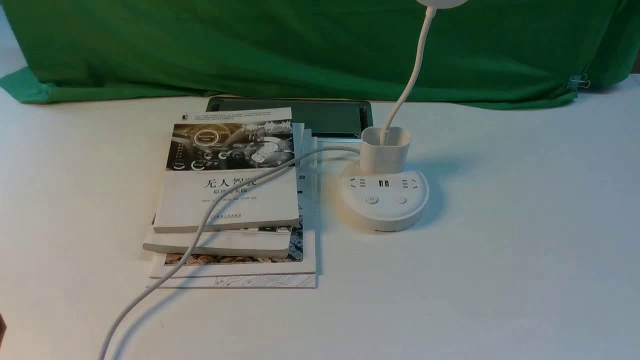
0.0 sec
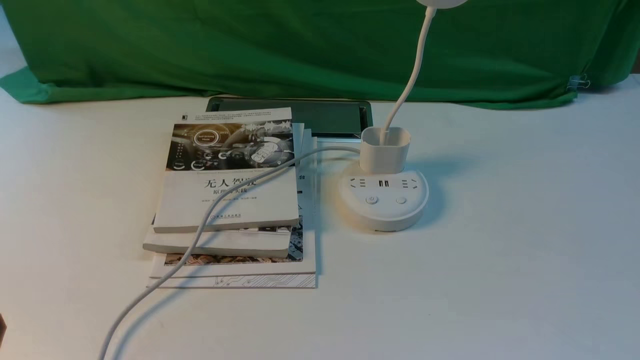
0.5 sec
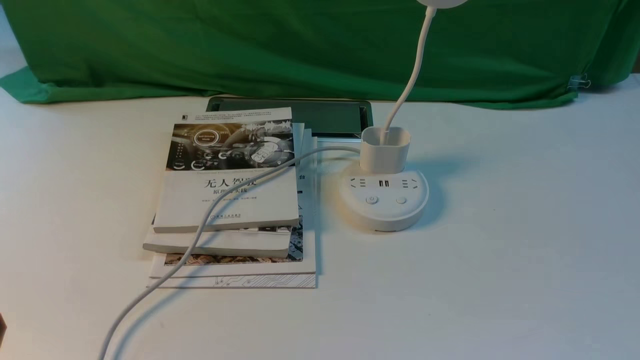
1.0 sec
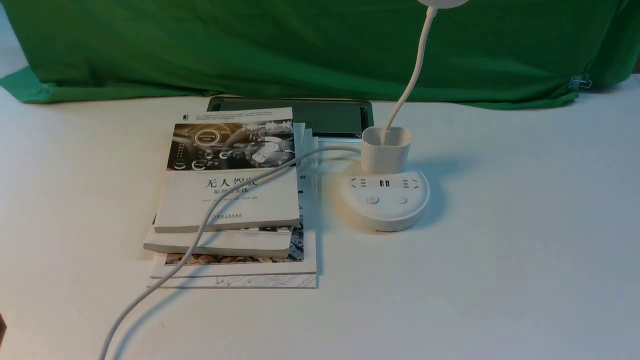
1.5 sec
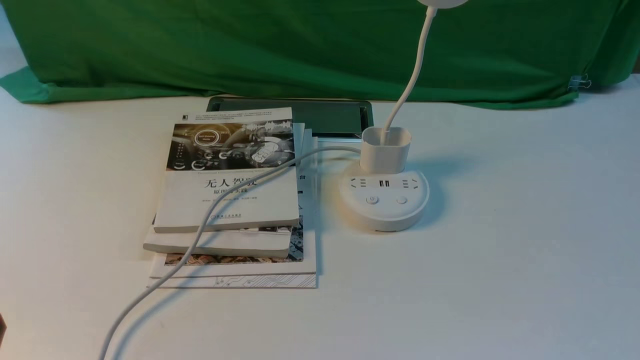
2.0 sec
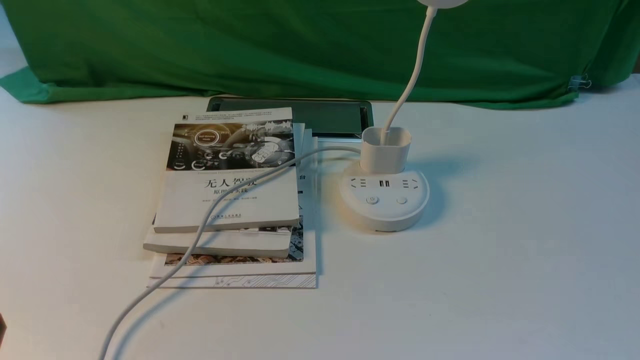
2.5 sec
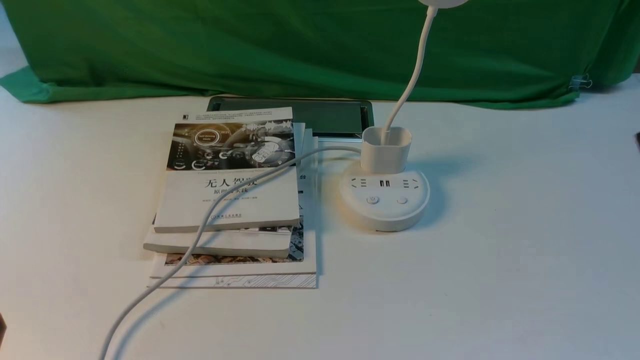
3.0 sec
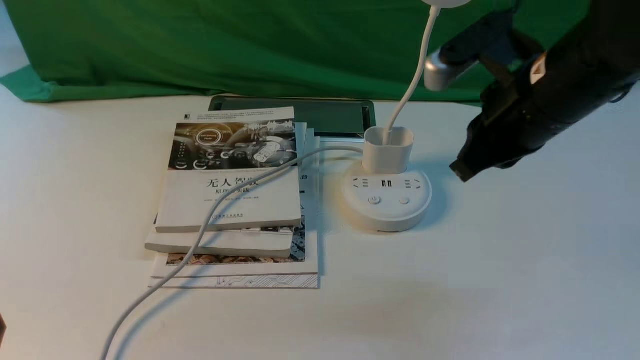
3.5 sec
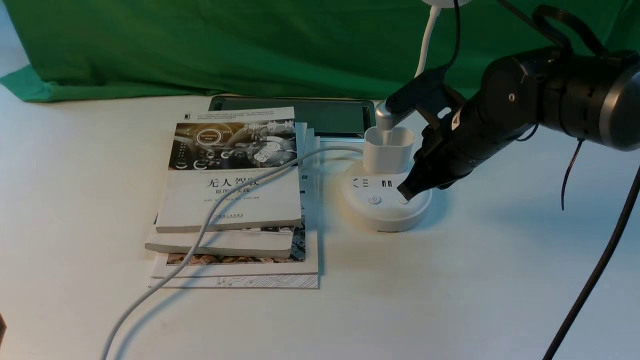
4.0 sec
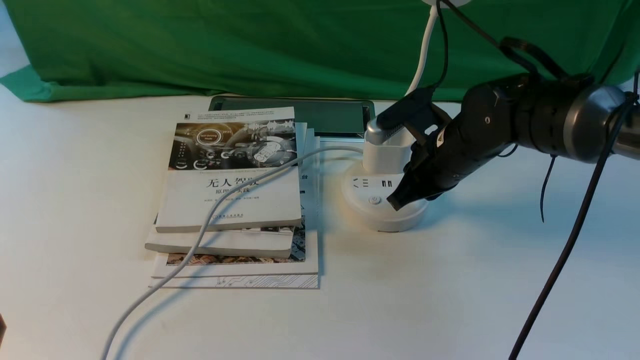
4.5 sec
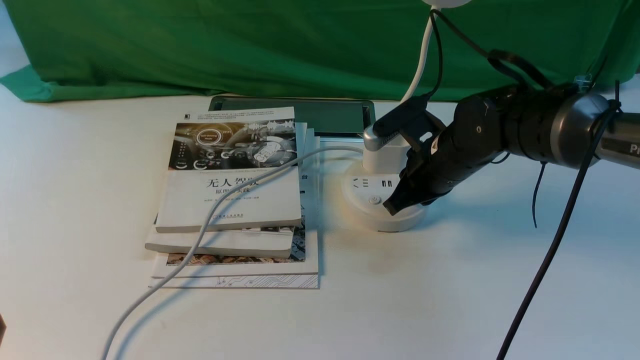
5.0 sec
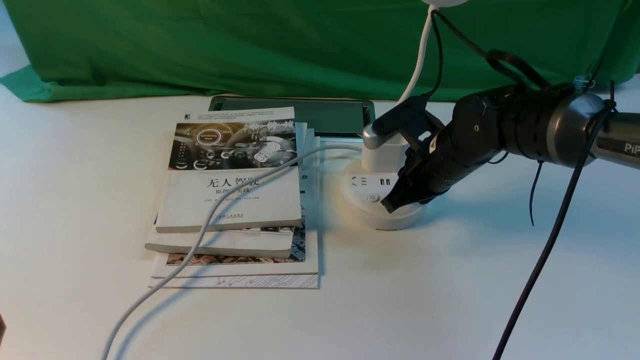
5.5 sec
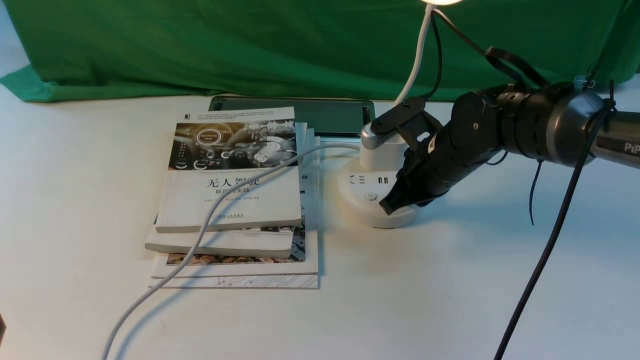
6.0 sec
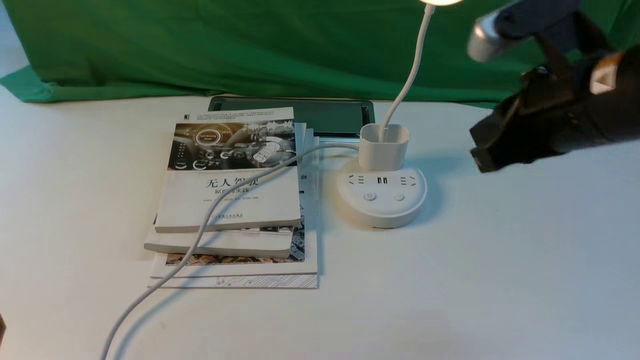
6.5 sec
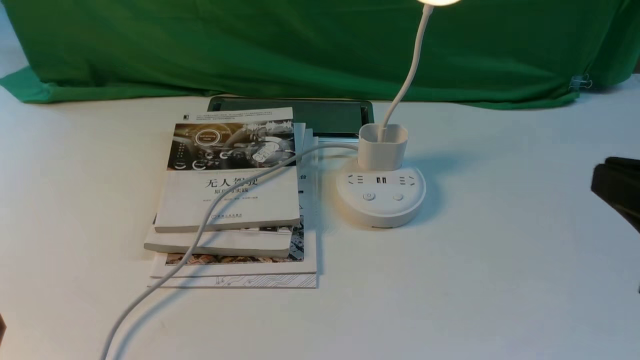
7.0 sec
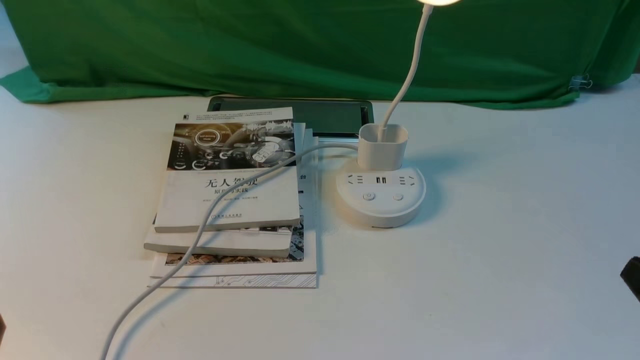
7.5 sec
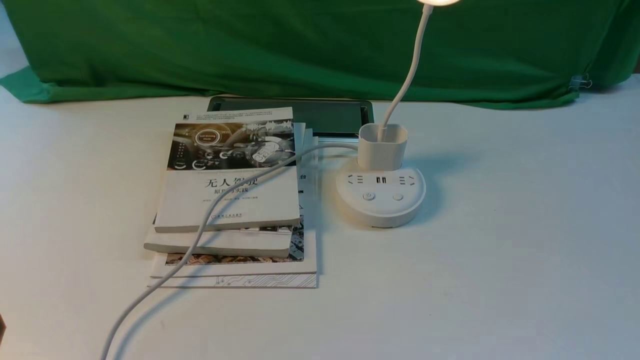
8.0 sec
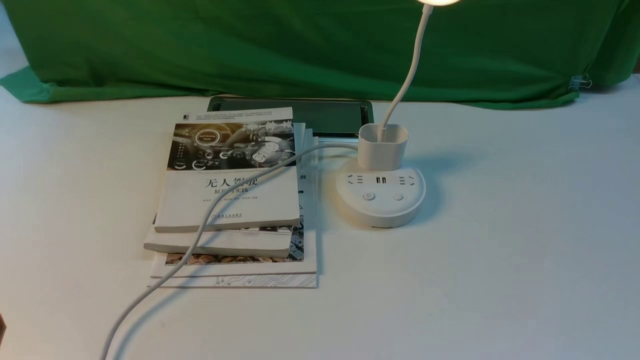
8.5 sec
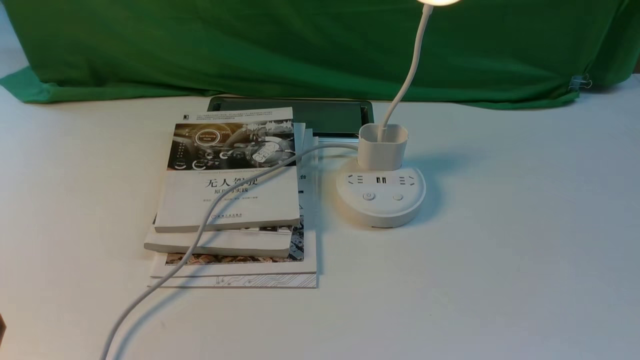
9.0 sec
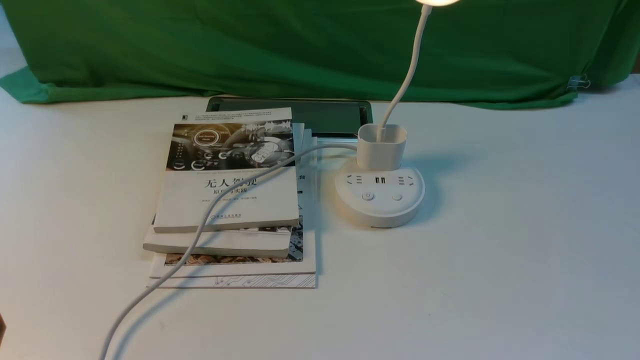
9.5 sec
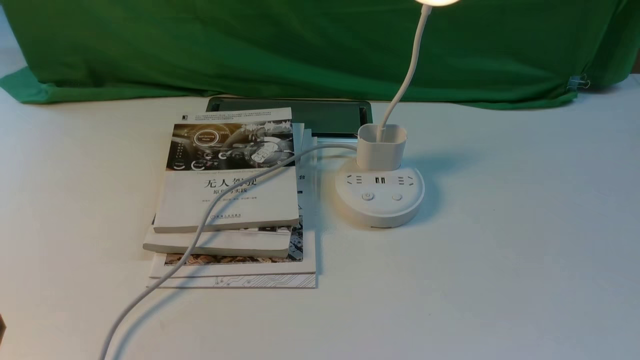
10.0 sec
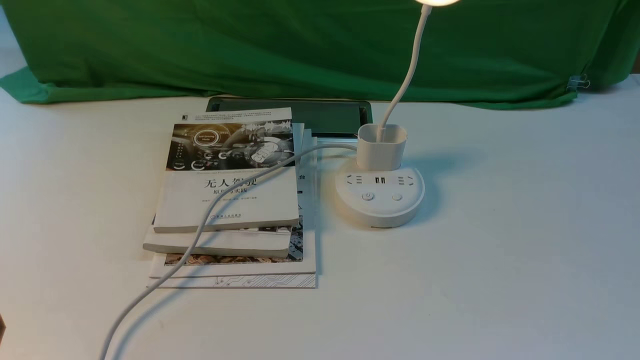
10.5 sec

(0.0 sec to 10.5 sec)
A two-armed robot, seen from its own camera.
Step, 0.0 sec - 6.0 sec: use the right arm to press the button switch on the lamp holder.
2.0 sec - 4.0 sec: The right gripper is displaced forward and to the left by roughly 35 cm, and closes up.
4.0 sec - 6.5 sec: The right gripper heads upward and backward, covering approximately 15 cm.
6.5 sec - 8.5 sec: The right gripper shifts roughly 30 cm backward, downward and to the right, and opens up.
8.5 sec - 10.5 sec: Neither gripper changes place.

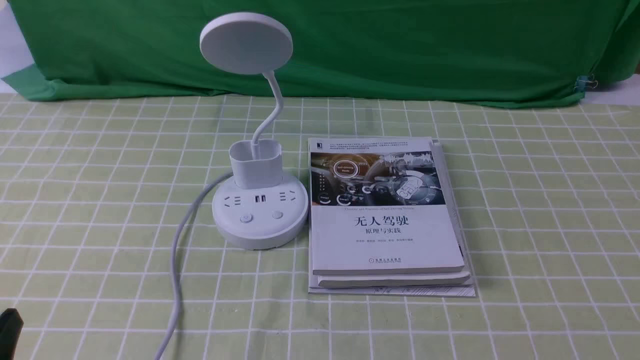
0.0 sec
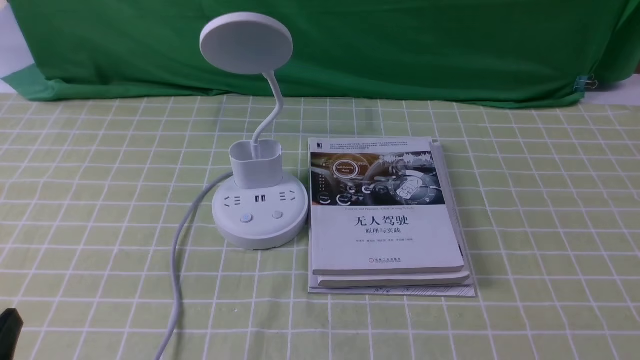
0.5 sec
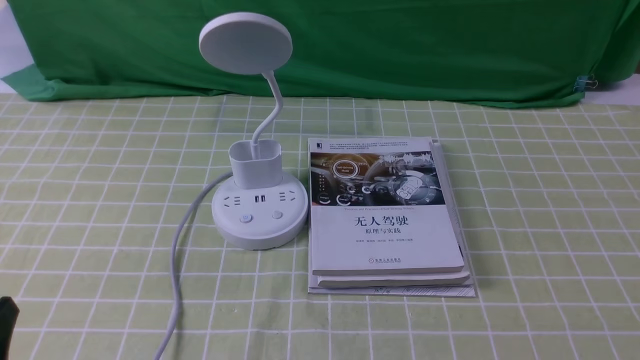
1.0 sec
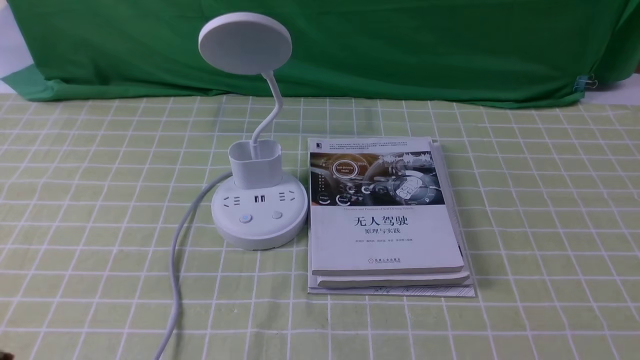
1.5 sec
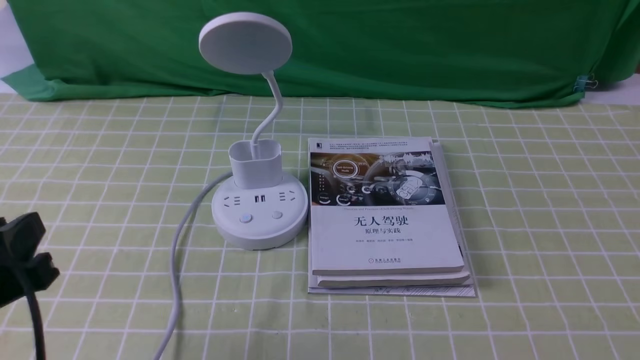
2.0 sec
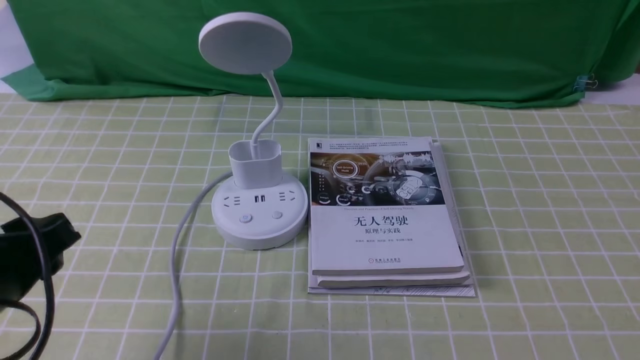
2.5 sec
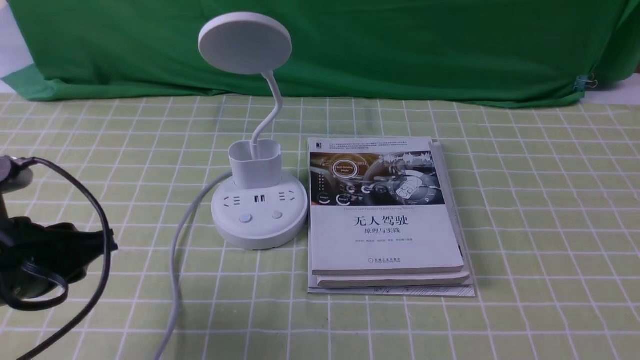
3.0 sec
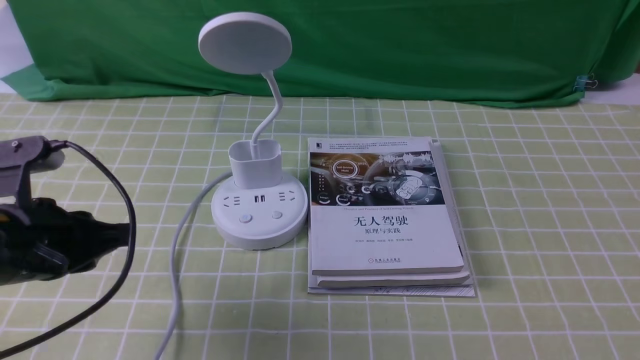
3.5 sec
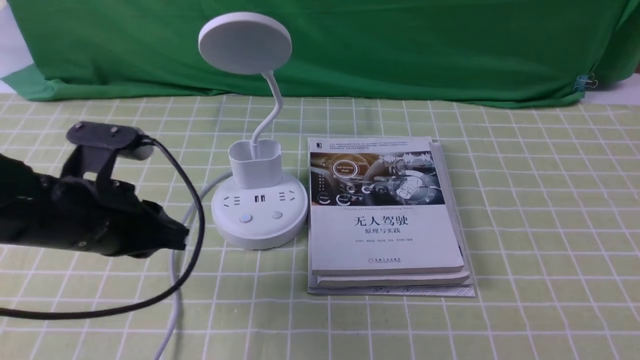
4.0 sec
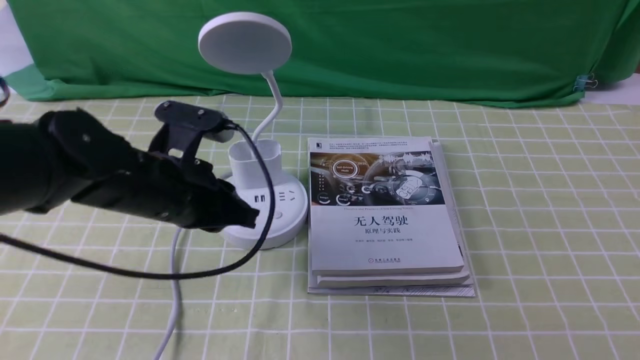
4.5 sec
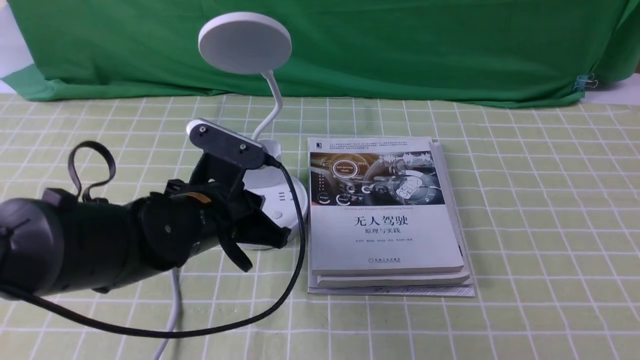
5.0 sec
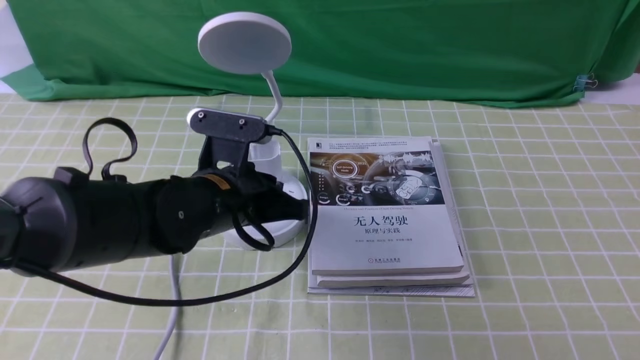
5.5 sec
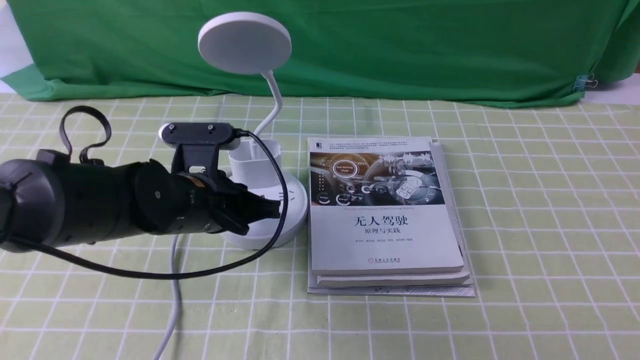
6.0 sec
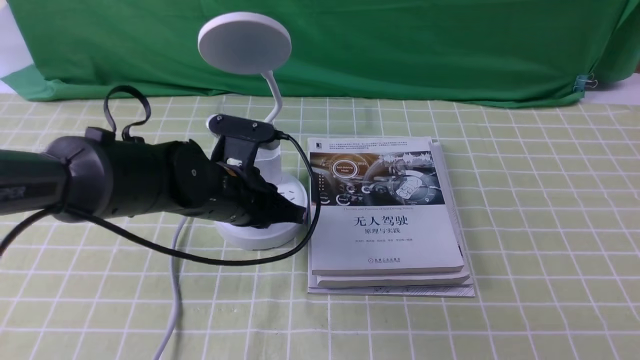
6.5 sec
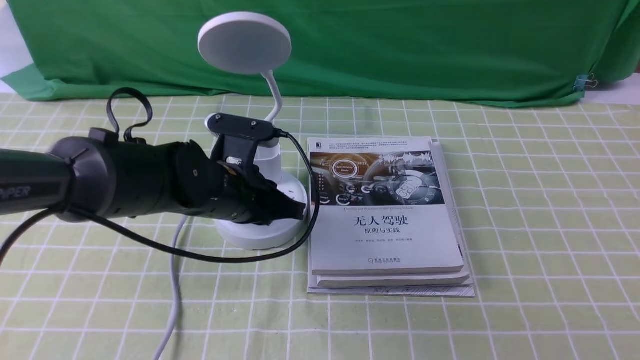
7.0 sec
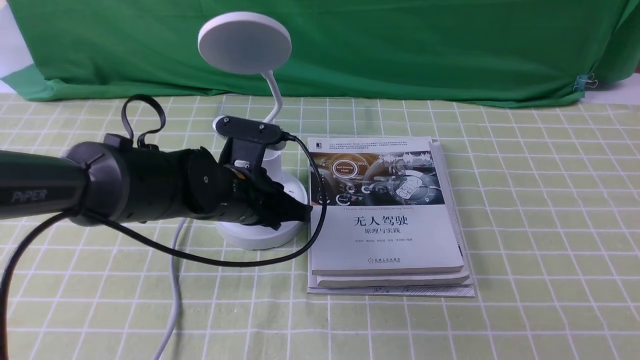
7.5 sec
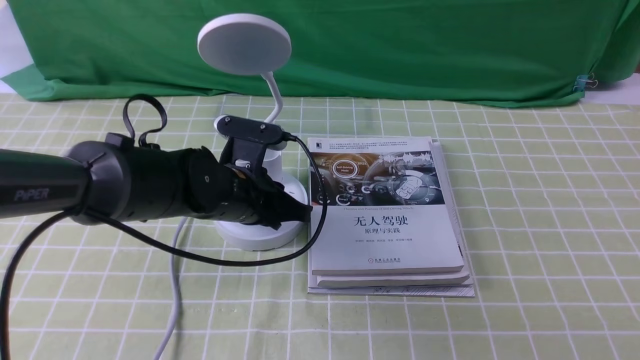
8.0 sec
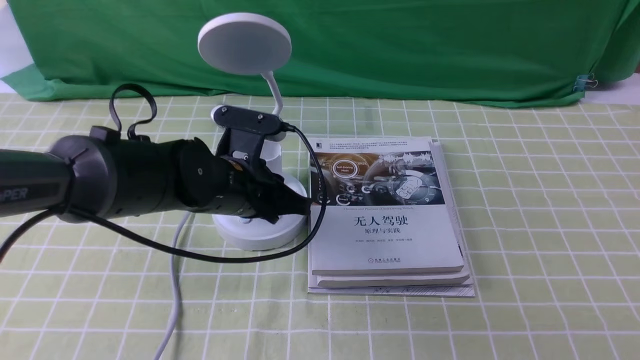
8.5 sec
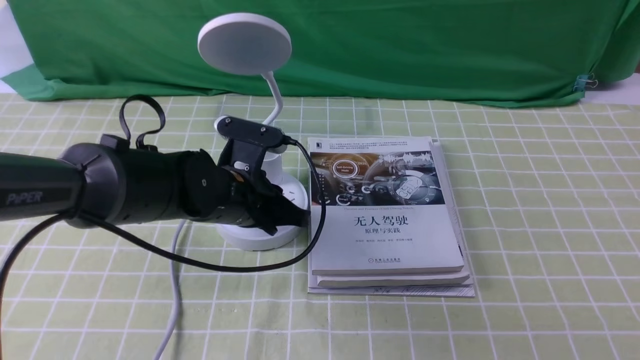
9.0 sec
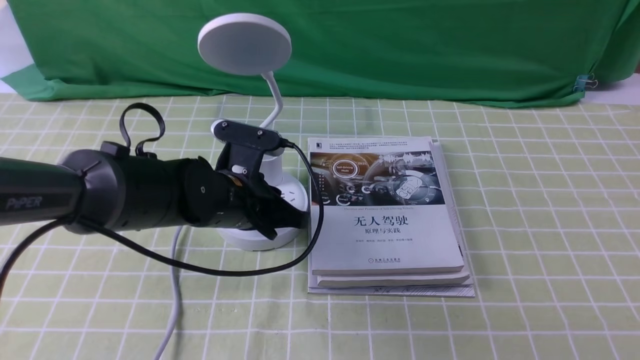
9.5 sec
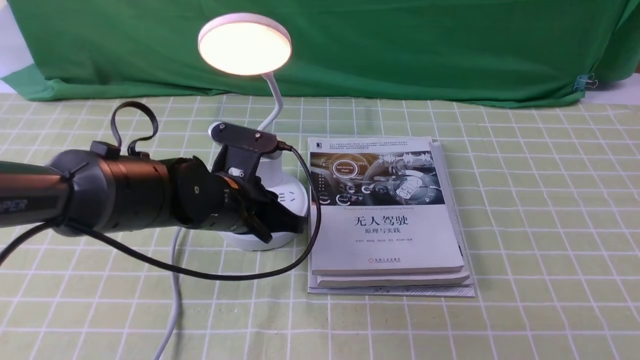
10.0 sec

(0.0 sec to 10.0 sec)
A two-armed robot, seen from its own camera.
0.0 sec - 2.0 sec: The left gripper heads forward and upward, covering about 10 cm.
2.0 sec - 4.0 sec: The left gripper shifts about 15 cm forward, and closes its fingers.
4.0 sec - 6.0 sec: The left gripper shifts some 10 cm to the right and forward.
6.0 sec - 10.0 sec: The grippers make only small movements.
